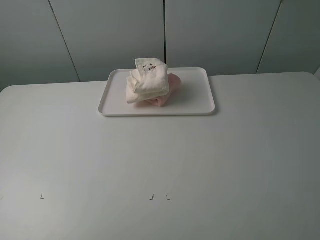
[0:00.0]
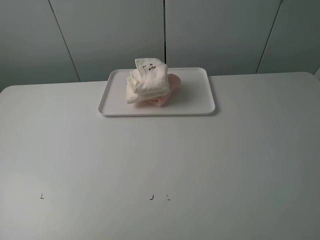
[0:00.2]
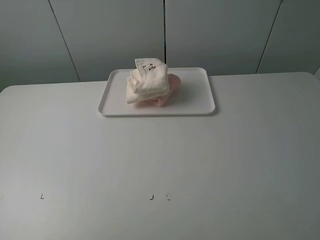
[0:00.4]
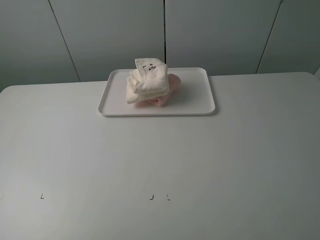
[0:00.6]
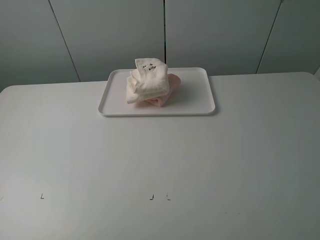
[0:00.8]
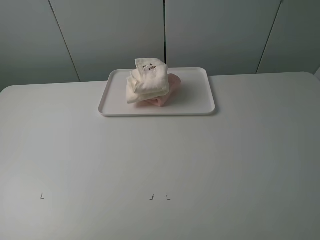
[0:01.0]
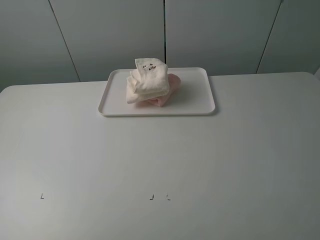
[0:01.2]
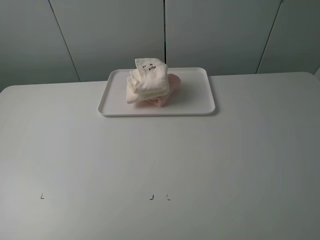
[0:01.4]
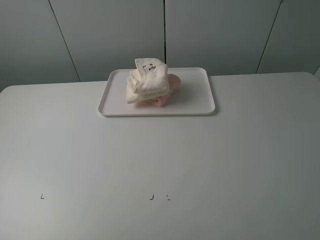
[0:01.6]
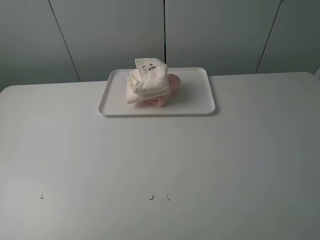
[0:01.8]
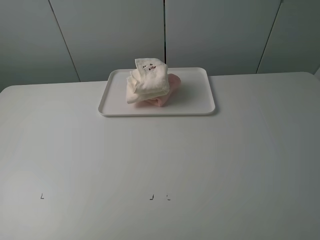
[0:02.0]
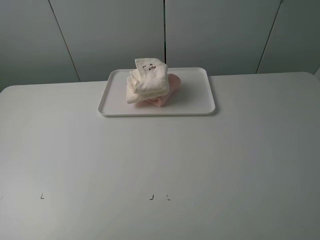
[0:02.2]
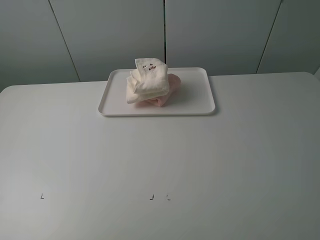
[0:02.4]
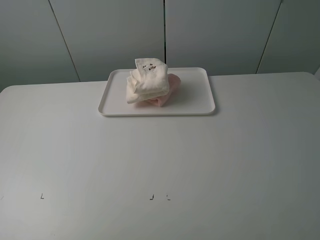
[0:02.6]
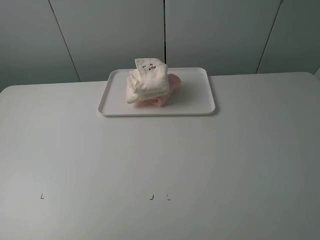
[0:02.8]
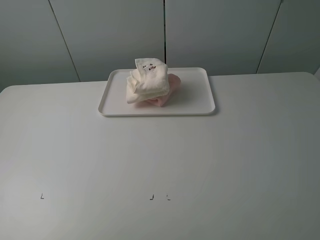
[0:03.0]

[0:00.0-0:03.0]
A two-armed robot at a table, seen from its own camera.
Task of the whole recording: fold one of the towels by two grippers and place it on the tray,then fold another towel by two grippers and place it on the folded towel.
0:01.6 to 0:03.0: The two grippers keep their place.
